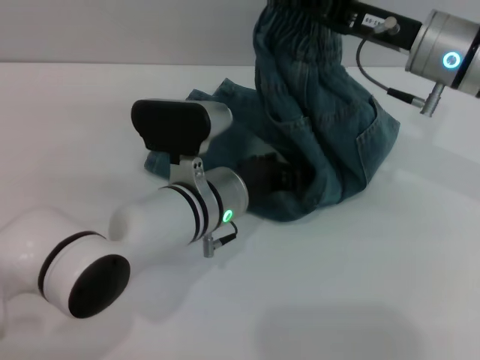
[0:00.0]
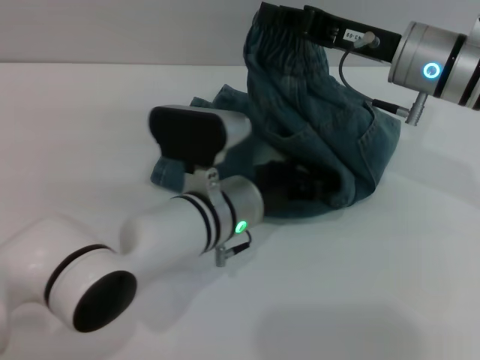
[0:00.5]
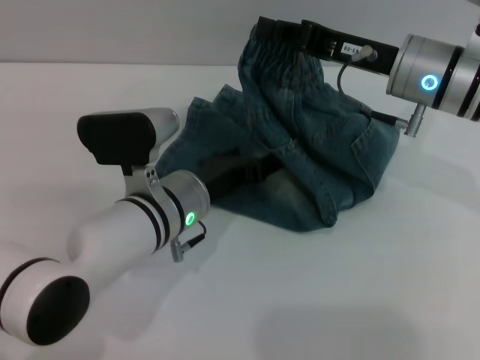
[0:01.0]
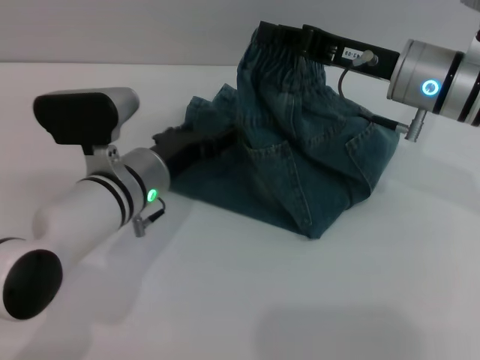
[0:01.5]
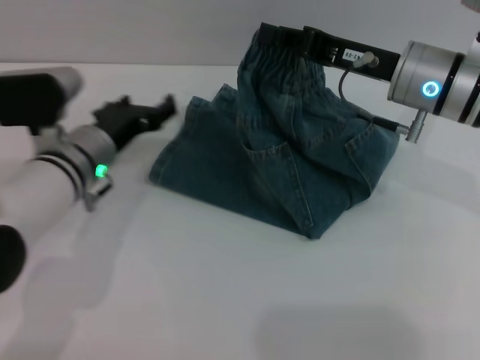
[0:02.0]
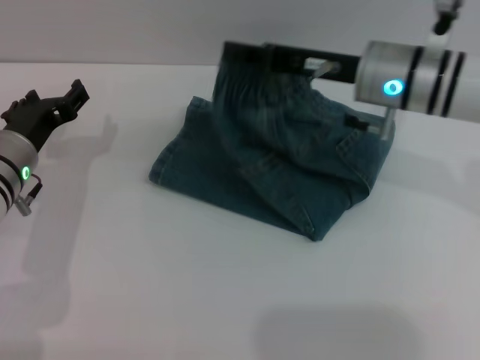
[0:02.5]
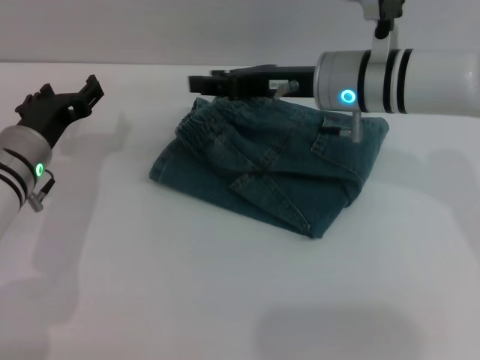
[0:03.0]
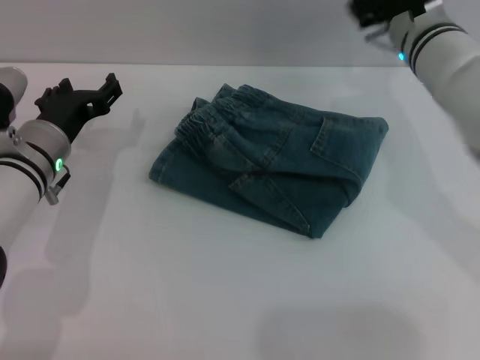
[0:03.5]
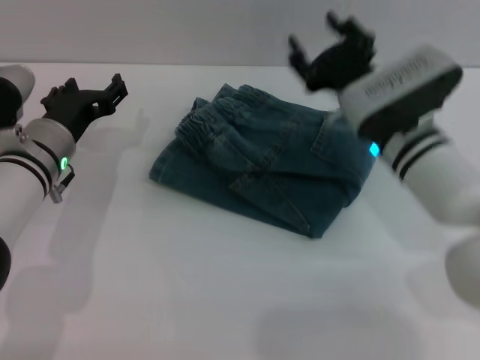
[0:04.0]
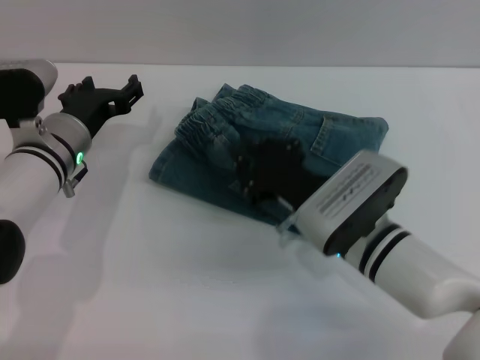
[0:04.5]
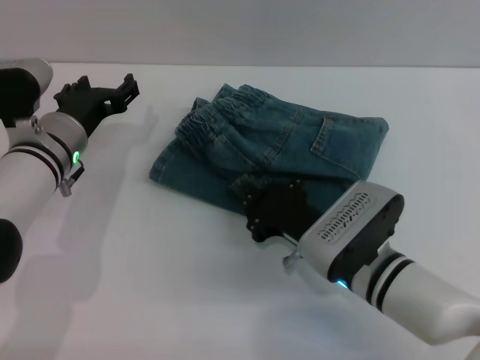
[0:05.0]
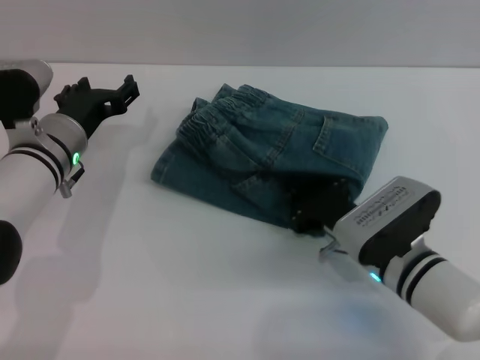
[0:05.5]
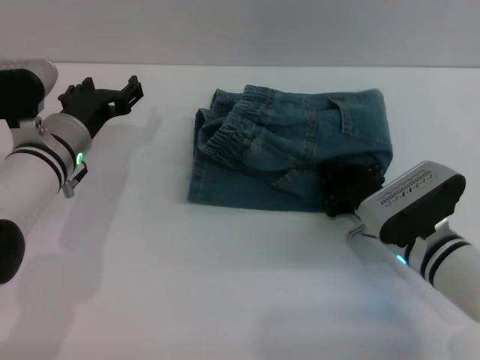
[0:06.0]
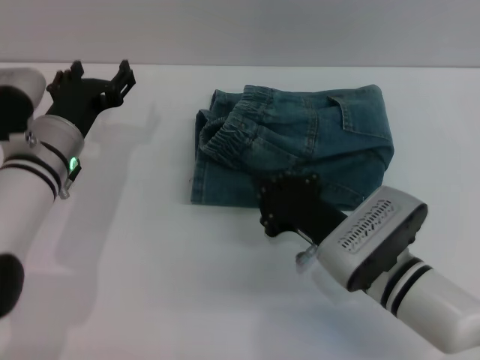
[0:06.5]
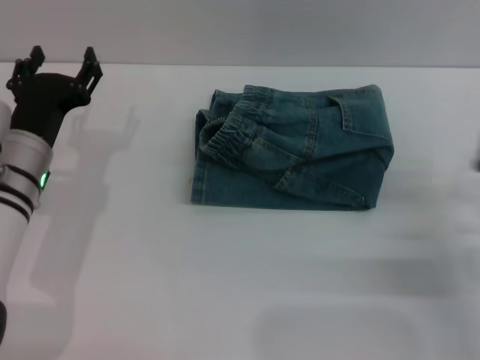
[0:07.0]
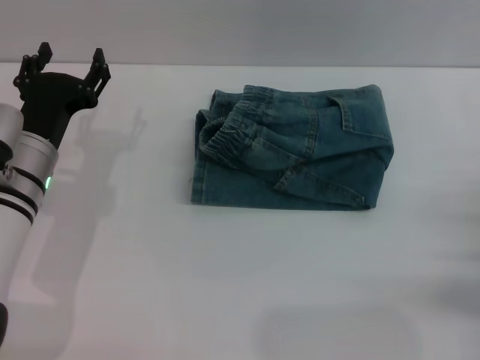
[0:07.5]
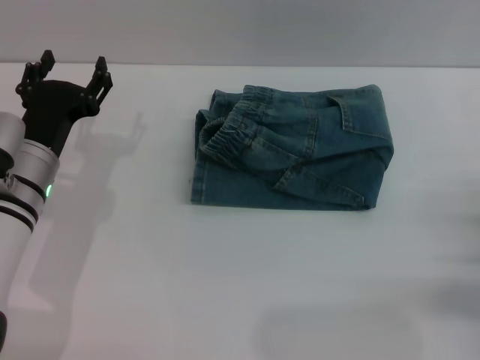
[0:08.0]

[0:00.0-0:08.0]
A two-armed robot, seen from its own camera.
Step, 0:00.0 to 0:03.0: Fold the pants from right to left with the right gripper.
Step, 0:03.5 to 0:06.5: Place the folded trousers onto the center area with the right grippers.
0:00.0 to 0:02.0: The left gripper is displaced to the left by approximately 10 cm.
0:02.0 to 0:04.0: The right gripper travels downward by roughly 5 cm, goes forward and returns, some 5 cm each way, and opens.
0:04.0 to 0:06.0: The right gripper goes roughly 10 cm downward and backward, and closes up.
0:06.0 to 0:08.0: The right gripper heads to the right and backward, covering some 15 cm, and opens its fingers; the left gripper shifts by approximately 5 cm.
